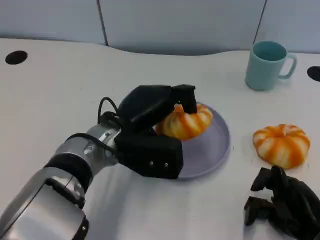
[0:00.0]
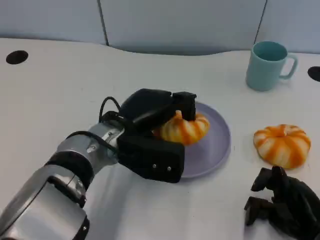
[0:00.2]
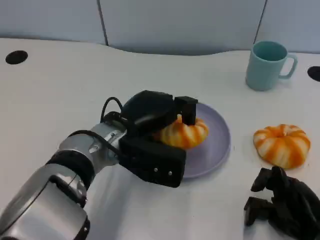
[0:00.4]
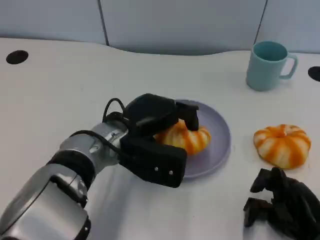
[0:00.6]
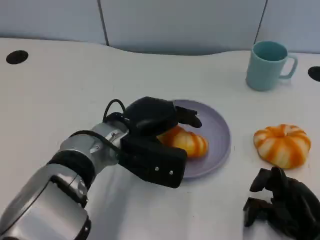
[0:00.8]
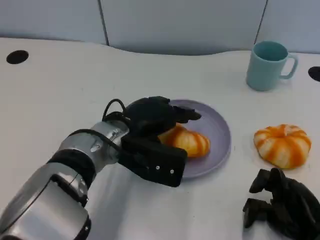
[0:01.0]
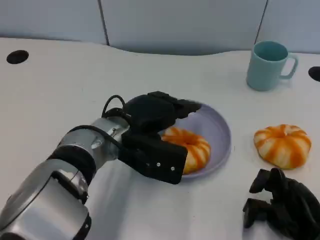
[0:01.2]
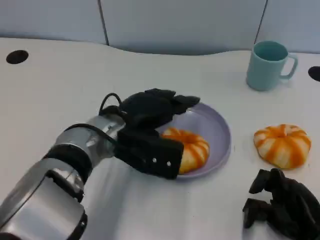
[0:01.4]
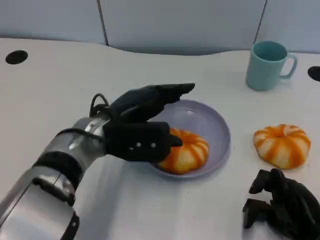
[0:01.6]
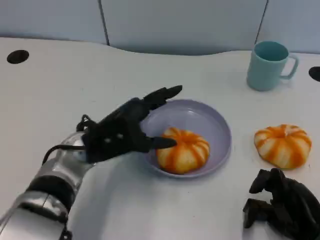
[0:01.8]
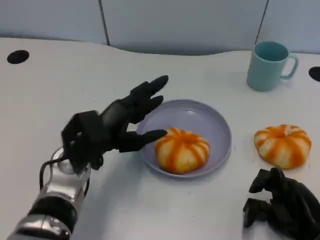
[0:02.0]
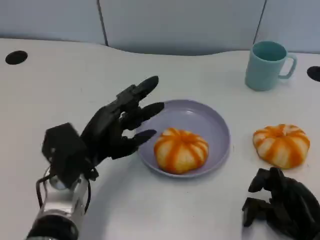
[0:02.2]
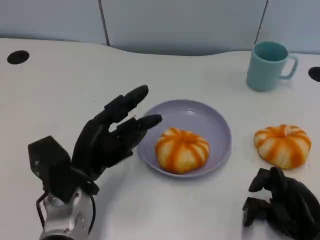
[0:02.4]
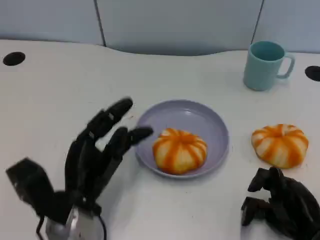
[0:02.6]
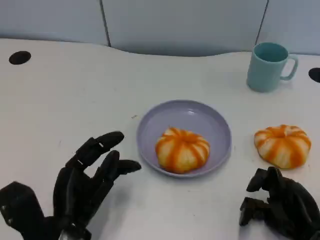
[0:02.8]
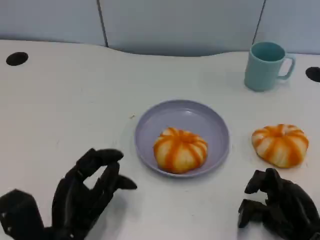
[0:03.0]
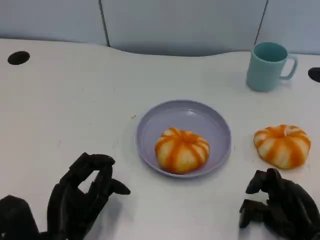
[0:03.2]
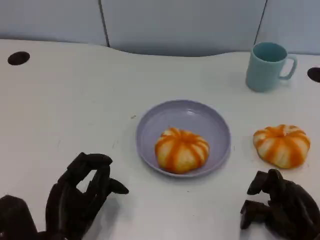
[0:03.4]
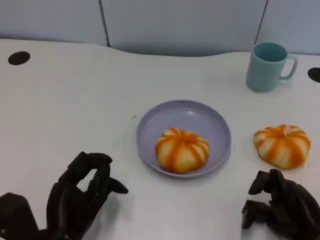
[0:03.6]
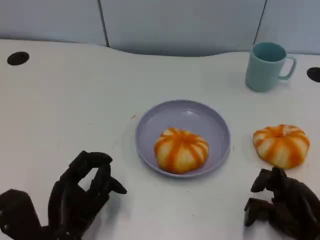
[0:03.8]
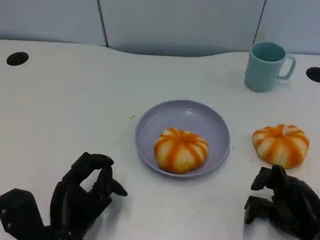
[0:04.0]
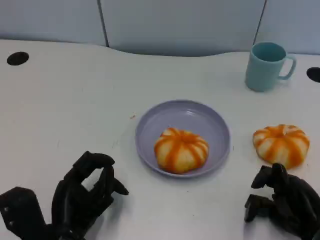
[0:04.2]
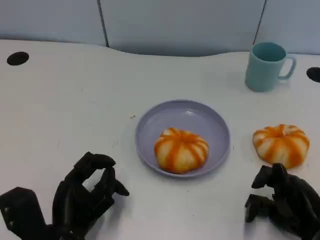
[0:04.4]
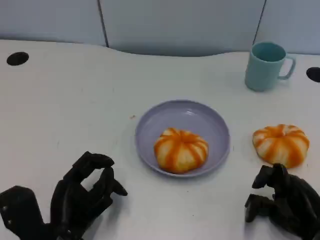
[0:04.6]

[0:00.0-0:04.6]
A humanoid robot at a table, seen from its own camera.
Task of the whole recording: Grasp the bread from the table and place it into the plate.
0:01.6 to 0:03.0: The left hand travels backward, downward and to the left by about 15 cm.
0:03.0 to 0:04.6: The hands make only small movements.

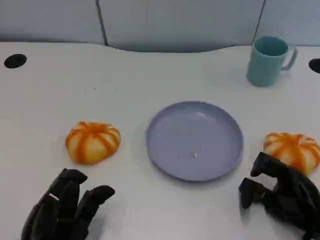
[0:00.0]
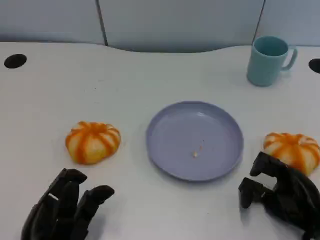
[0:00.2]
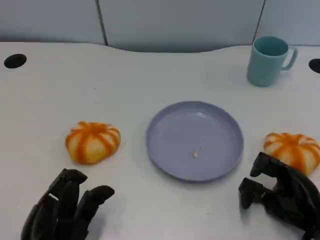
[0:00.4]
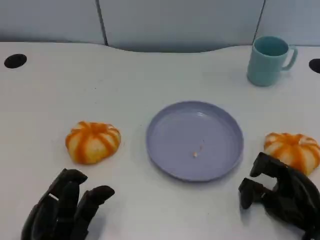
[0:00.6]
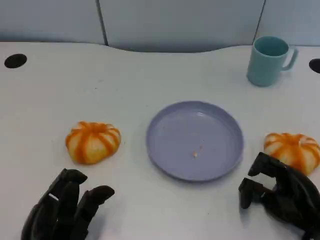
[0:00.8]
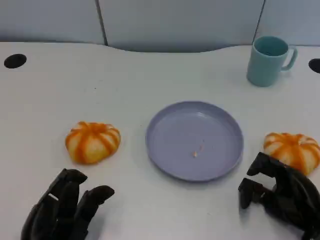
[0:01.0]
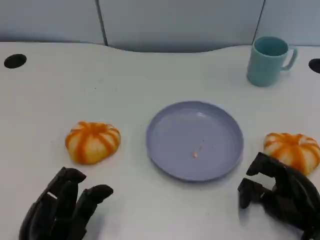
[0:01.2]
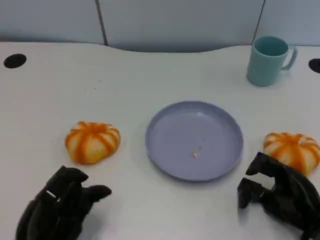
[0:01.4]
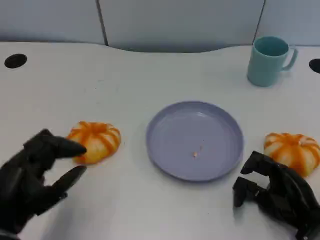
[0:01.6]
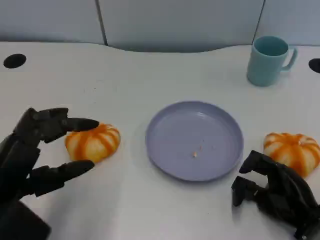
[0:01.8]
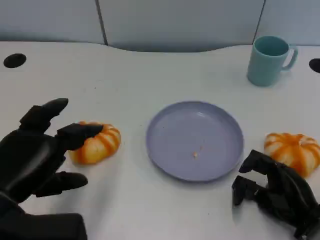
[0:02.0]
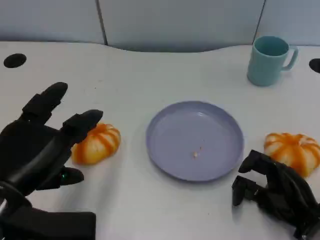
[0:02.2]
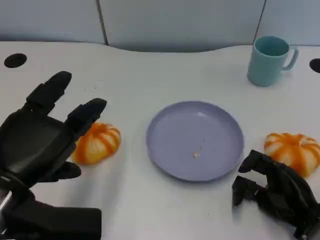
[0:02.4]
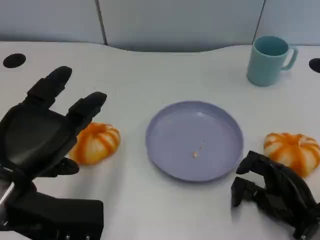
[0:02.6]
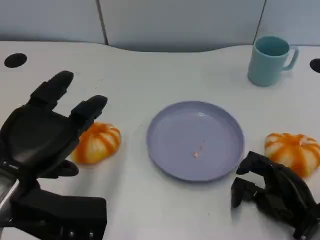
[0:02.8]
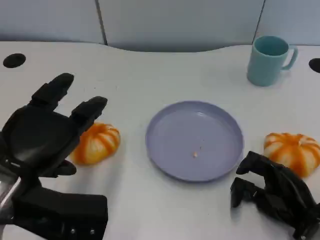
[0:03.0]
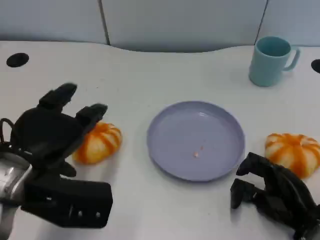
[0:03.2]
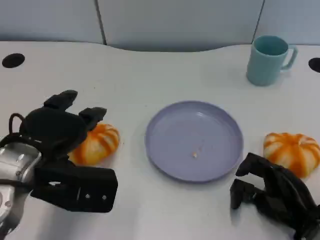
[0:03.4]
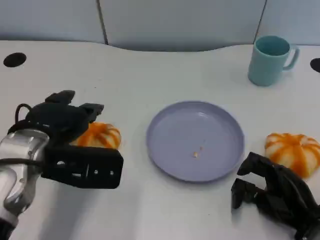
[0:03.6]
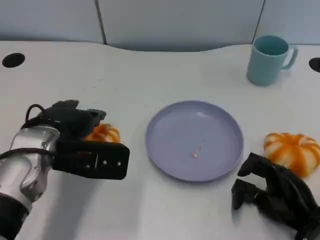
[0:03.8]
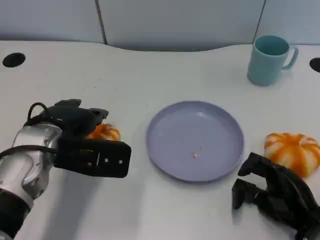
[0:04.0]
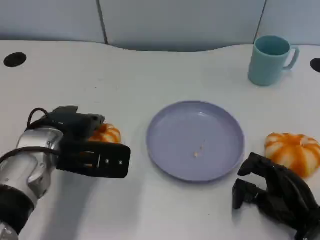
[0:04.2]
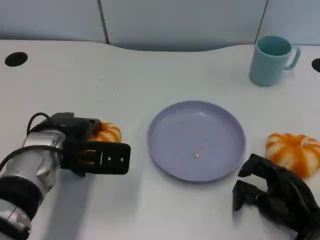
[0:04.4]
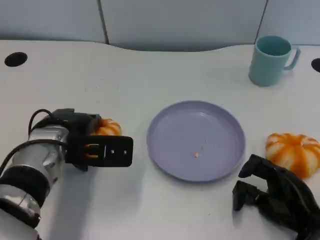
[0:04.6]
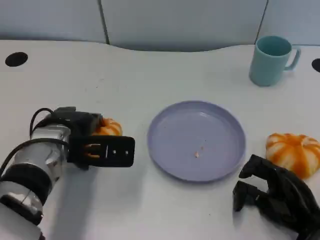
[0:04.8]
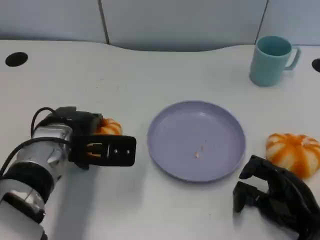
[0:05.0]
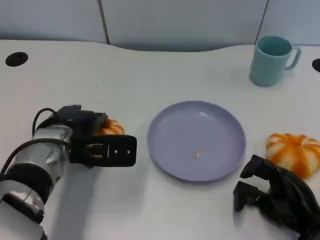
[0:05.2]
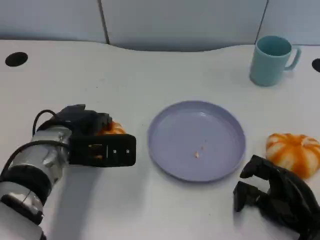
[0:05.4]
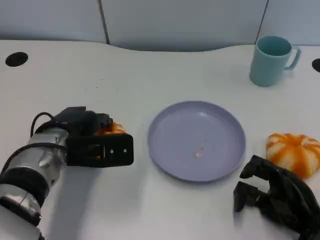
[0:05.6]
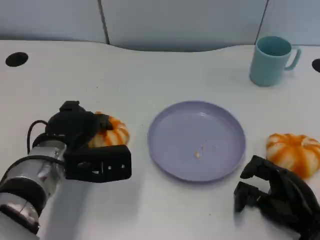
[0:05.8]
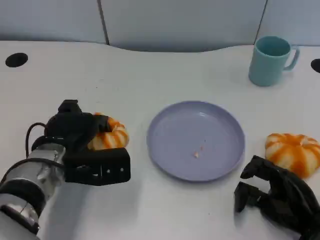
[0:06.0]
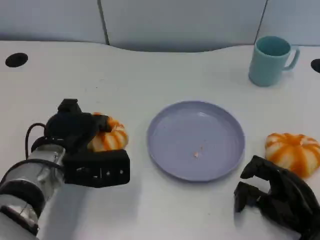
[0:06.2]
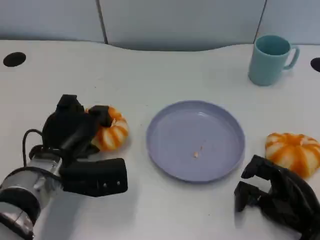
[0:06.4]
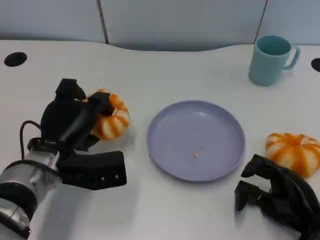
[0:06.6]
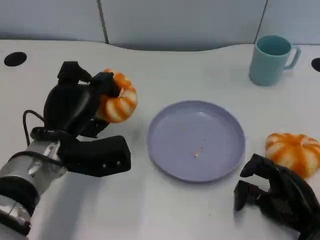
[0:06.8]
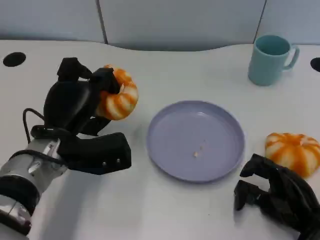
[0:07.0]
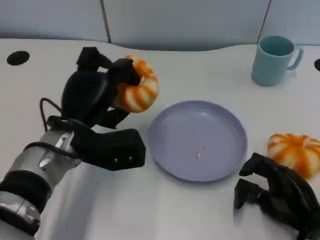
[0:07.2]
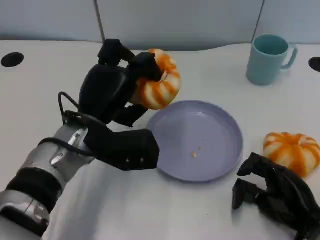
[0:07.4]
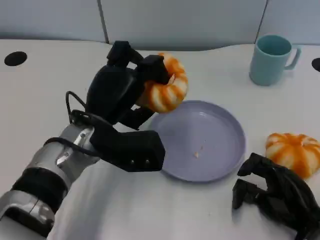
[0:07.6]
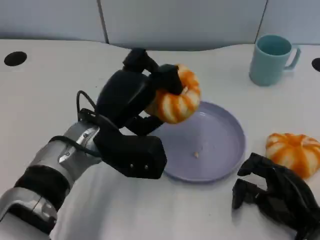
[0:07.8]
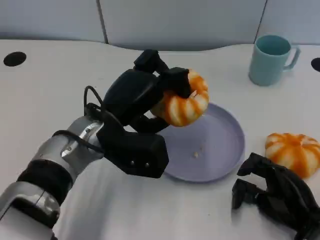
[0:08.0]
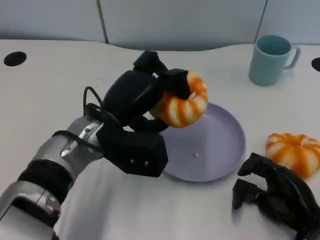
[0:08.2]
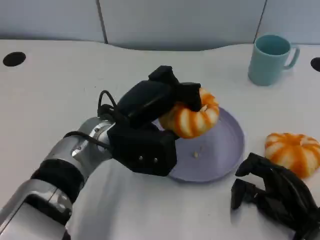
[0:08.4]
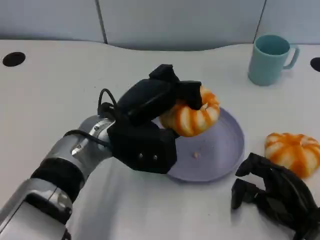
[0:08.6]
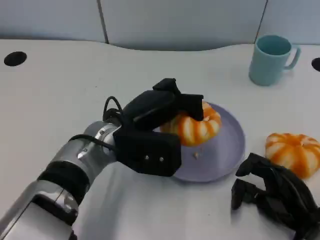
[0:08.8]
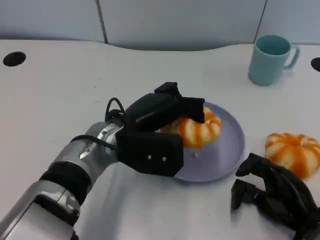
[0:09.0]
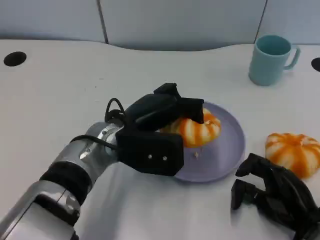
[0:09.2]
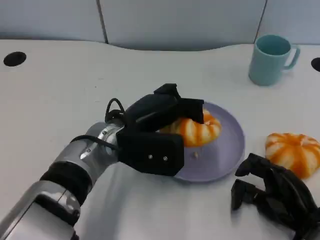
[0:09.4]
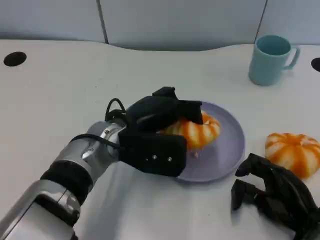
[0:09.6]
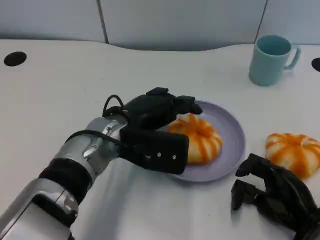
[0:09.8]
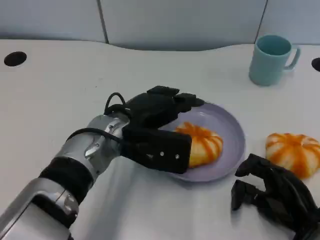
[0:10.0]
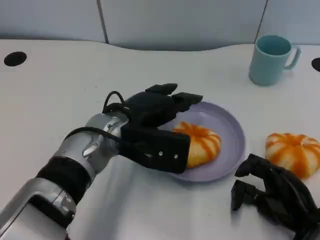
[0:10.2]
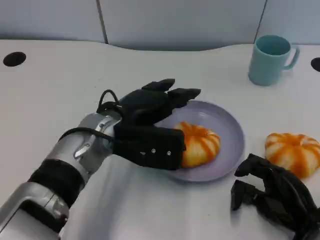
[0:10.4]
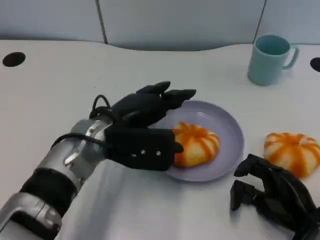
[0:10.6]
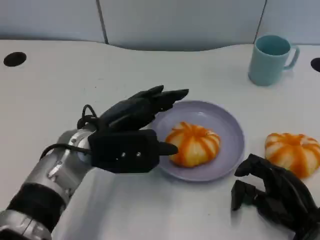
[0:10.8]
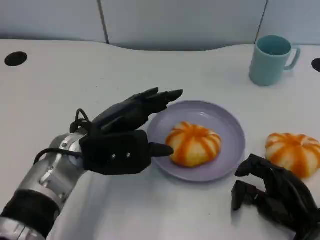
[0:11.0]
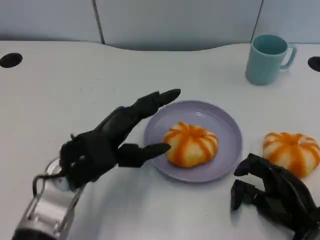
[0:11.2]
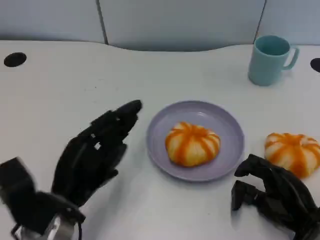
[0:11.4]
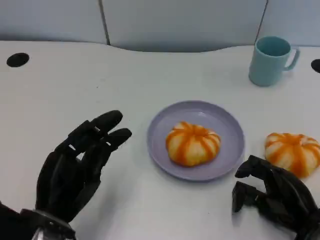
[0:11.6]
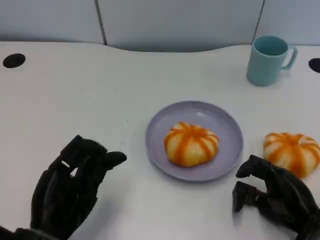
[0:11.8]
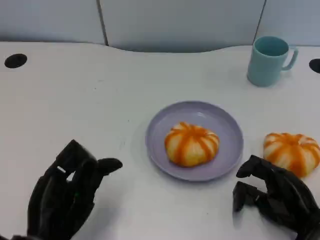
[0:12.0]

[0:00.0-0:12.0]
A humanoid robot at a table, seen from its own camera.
Task of the whole recording: Grasp the bread from the table and place it into the plate.
0:00.0 to 0:01.6: The left hand heads upward, covering some 5 cm.
0:01.6 to 0:03.0: The left hand goes some 5 cm upward.
0:03.0 to 0:04.4: The left hand shifts about 15 cm forward and downward.
0:06.0 to 0:07.6: The left hand shifts some 10 cm to the right and upward.
0:09.0 to 0:10.4: The hands make only small movements.
0:10.4 to 0:12.0: The left hand moves backward, to the left and downward, about 20 cm.

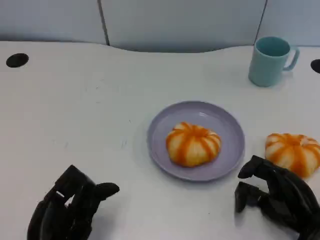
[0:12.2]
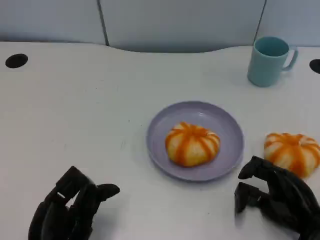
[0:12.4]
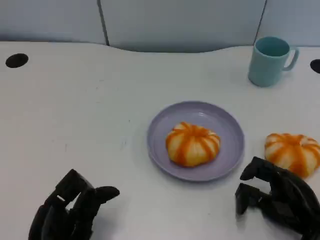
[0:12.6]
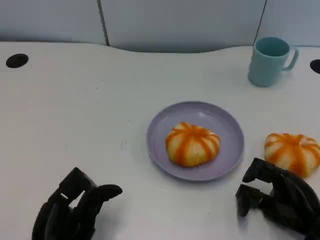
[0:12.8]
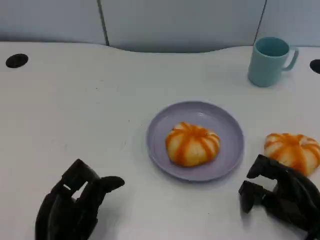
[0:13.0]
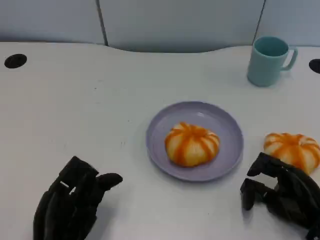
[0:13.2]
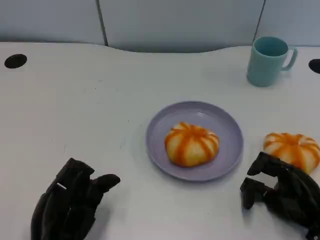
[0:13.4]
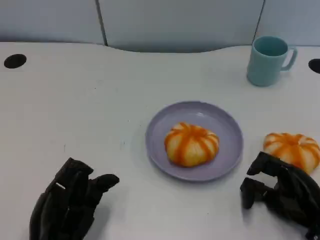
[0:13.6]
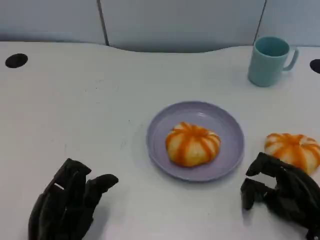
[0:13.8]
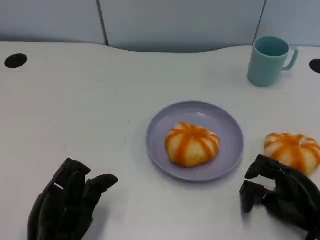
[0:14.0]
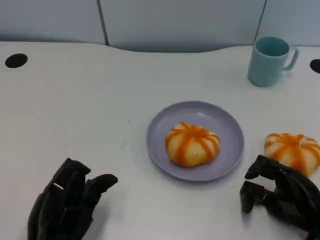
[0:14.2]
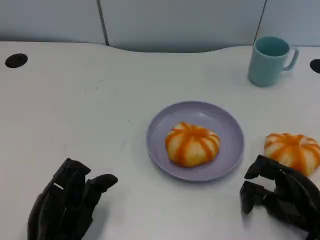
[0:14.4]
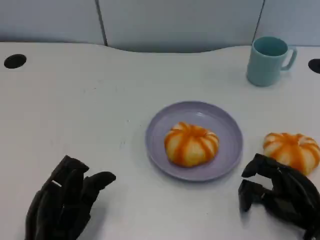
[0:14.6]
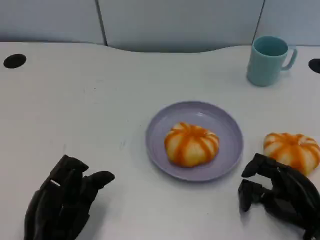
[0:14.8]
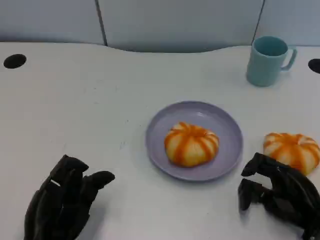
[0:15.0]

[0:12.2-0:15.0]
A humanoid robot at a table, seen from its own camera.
Task of the whole recording: Grasp the bread from the table and place it into the plate.
0:12.2 to 0:13.6: The hands make only small movements.
0:13.6 to 0:15.0: Both hands stay put.

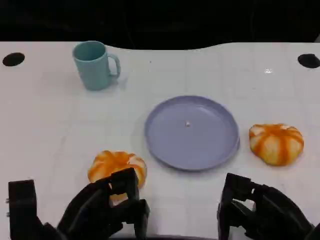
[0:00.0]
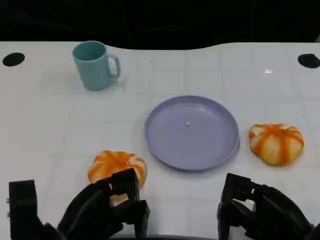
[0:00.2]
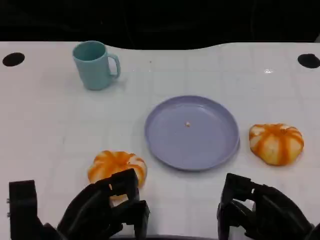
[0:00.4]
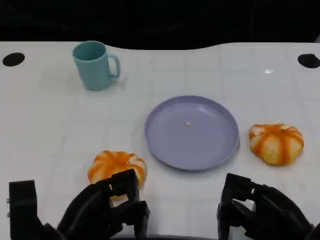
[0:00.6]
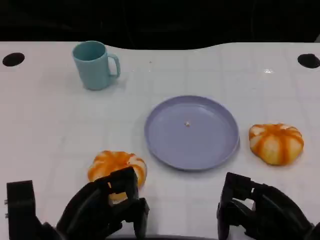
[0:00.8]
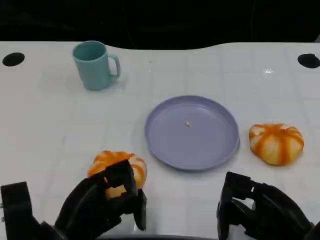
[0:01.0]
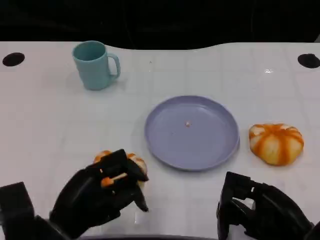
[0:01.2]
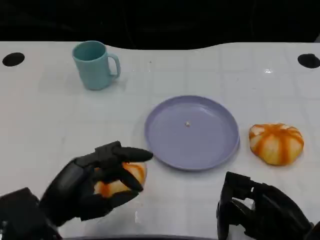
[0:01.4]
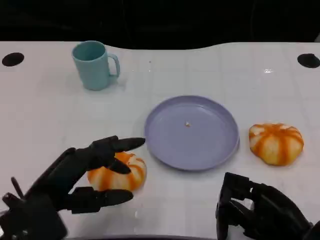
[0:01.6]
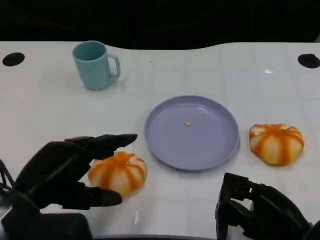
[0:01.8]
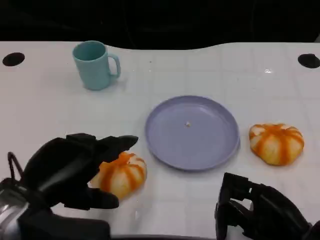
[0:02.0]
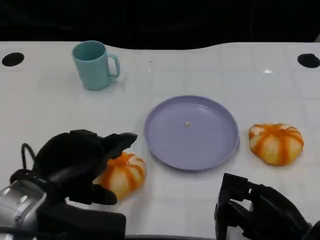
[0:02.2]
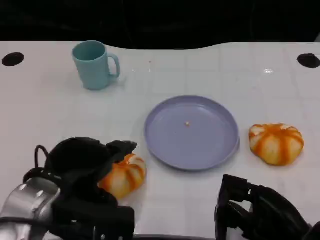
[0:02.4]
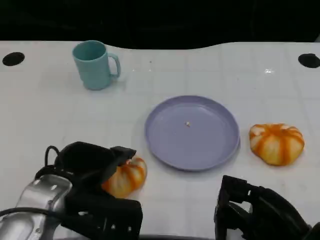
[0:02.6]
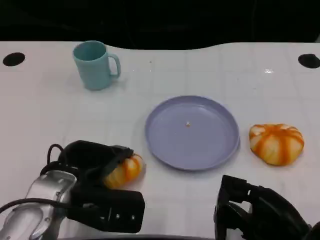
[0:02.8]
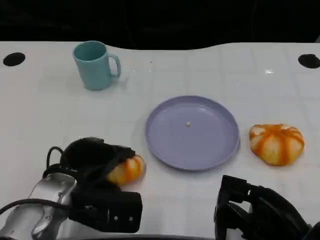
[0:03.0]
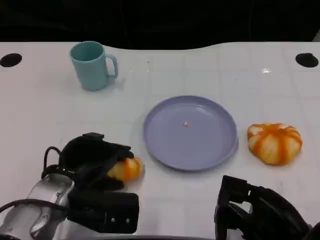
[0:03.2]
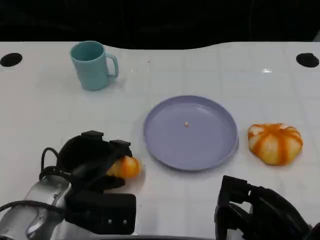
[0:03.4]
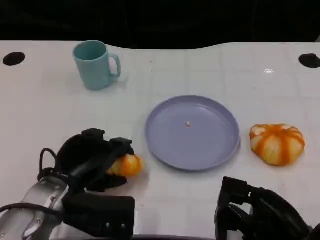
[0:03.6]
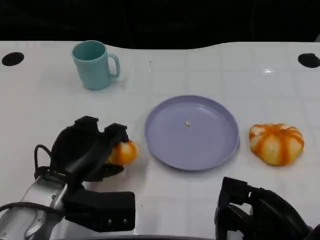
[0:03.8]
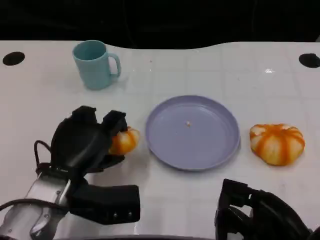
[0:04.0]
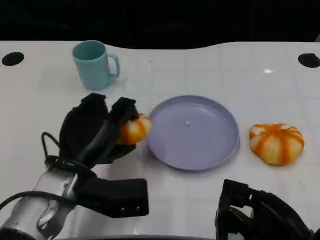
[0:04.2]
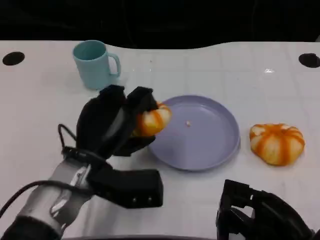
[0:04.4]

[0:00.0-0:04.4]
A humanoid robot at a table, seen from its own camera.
Task of the whole recording: Grasp the bread from the table and place it into the plate.
0:01.4 to 0:03.0: The left hand heads forward, covering roughly 5 cm.
0:03.0 to 0:04.4: The left hand ends up about 5 cm from where it was.
